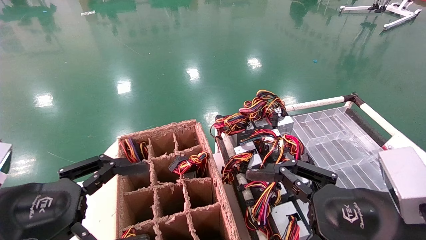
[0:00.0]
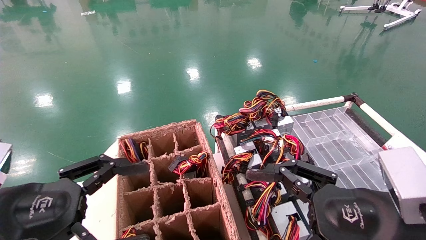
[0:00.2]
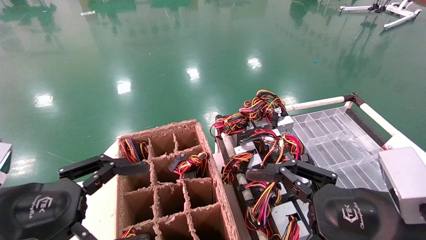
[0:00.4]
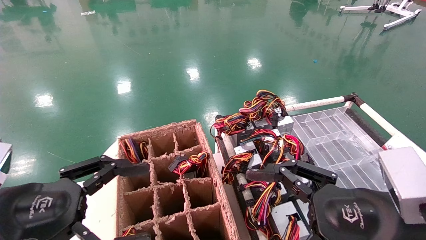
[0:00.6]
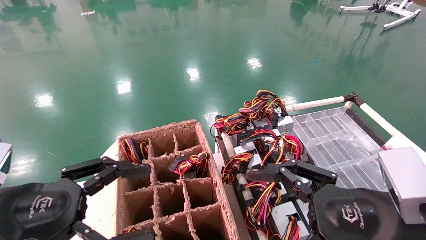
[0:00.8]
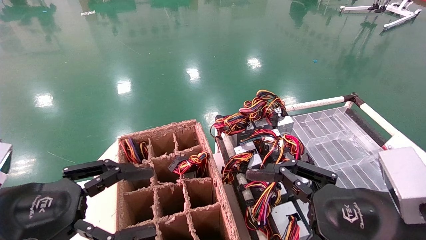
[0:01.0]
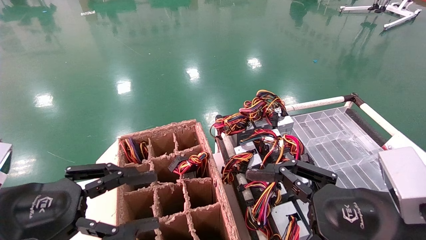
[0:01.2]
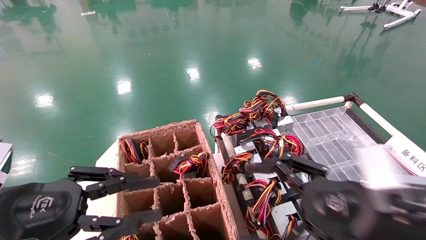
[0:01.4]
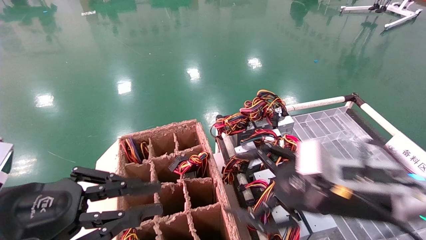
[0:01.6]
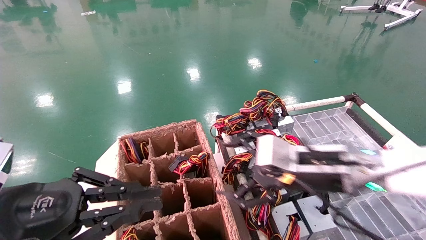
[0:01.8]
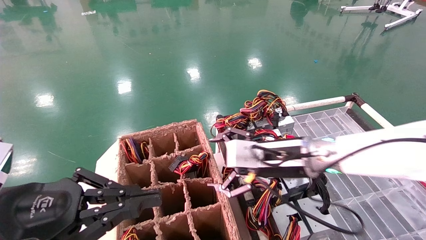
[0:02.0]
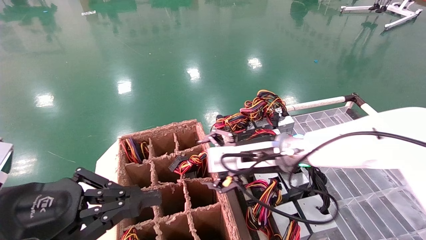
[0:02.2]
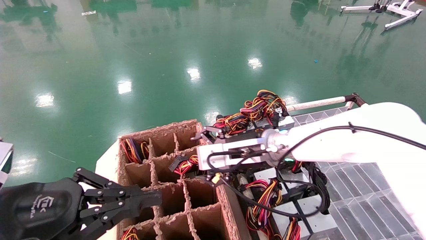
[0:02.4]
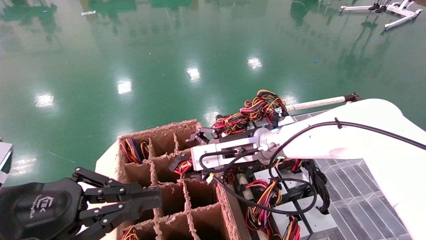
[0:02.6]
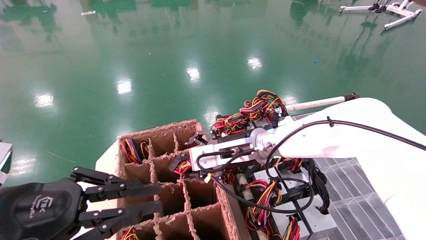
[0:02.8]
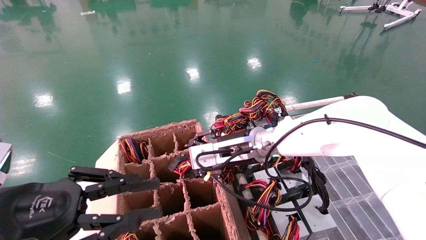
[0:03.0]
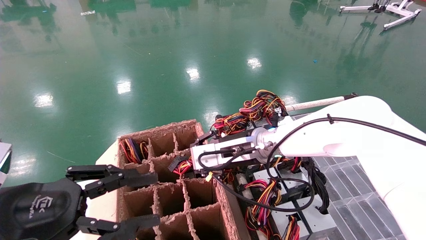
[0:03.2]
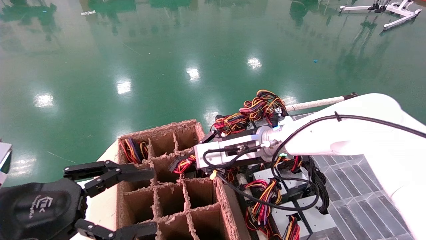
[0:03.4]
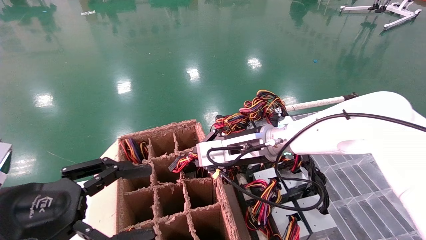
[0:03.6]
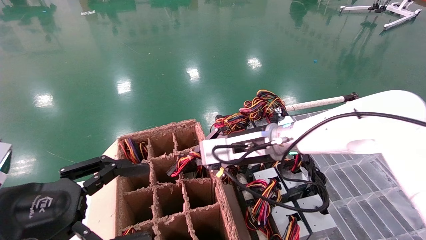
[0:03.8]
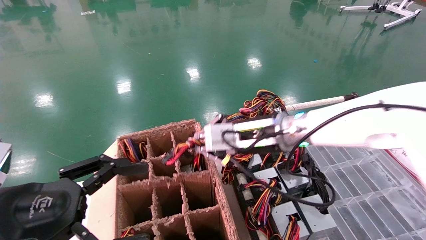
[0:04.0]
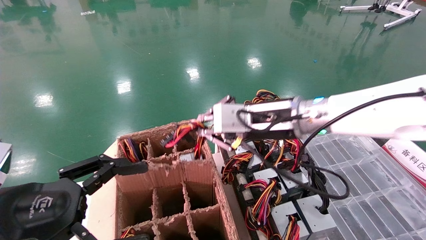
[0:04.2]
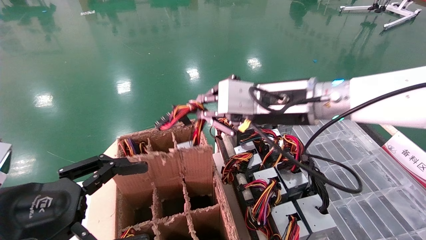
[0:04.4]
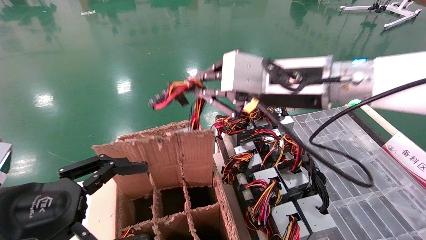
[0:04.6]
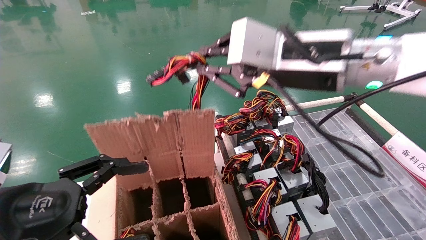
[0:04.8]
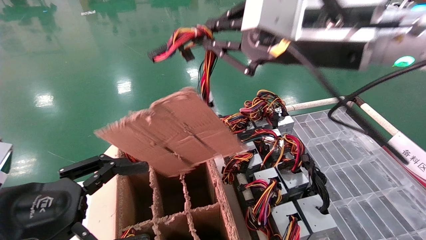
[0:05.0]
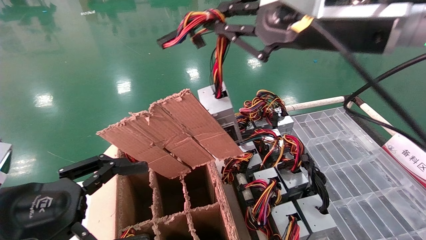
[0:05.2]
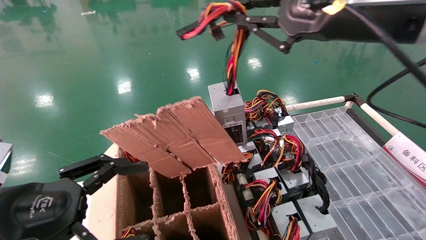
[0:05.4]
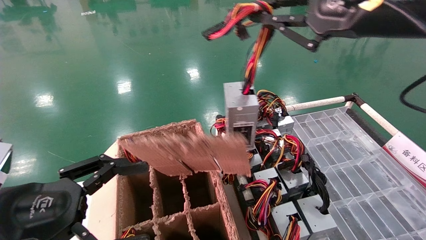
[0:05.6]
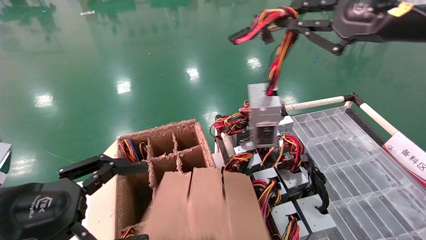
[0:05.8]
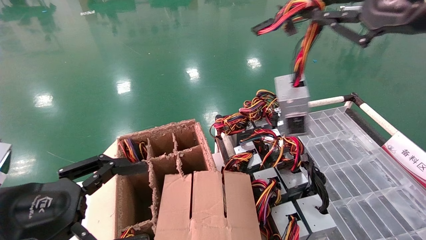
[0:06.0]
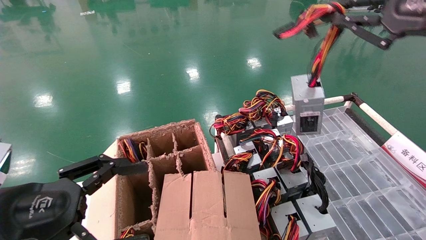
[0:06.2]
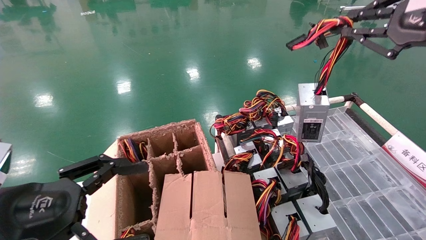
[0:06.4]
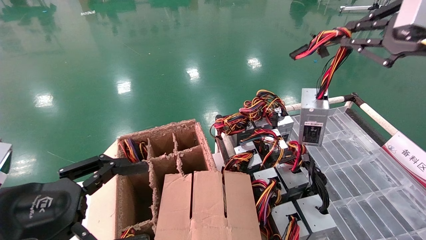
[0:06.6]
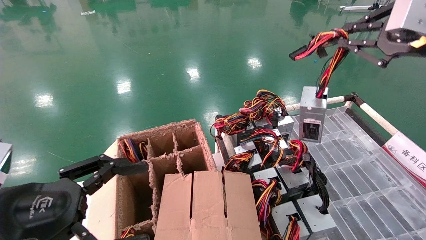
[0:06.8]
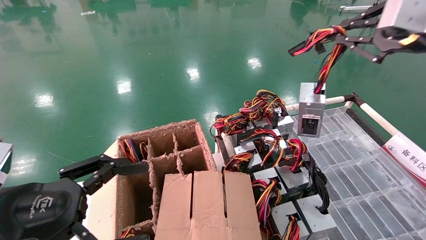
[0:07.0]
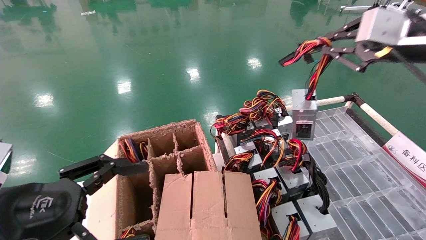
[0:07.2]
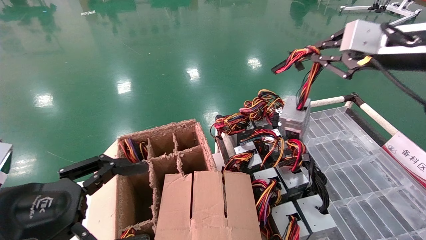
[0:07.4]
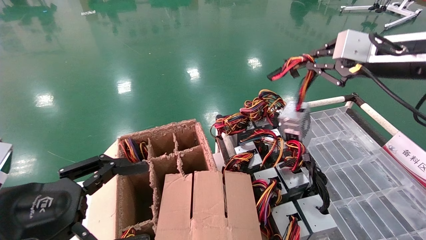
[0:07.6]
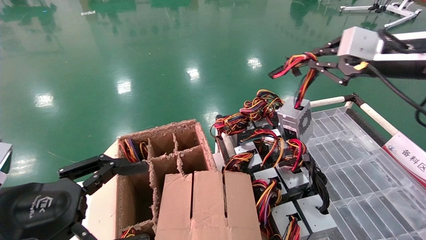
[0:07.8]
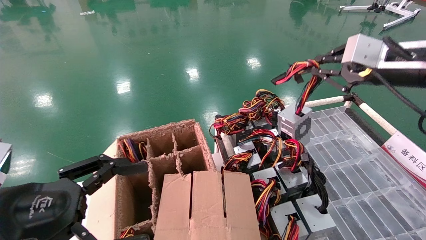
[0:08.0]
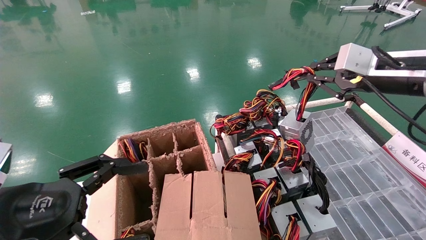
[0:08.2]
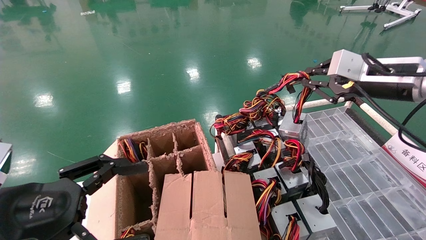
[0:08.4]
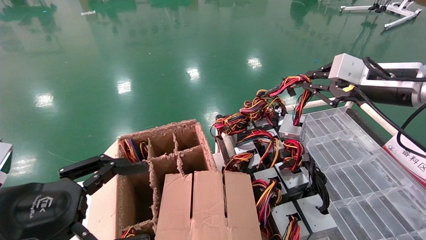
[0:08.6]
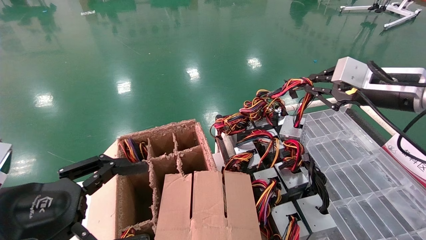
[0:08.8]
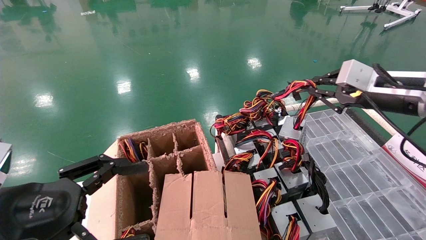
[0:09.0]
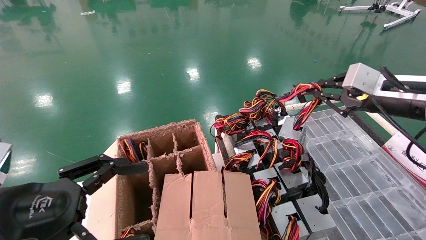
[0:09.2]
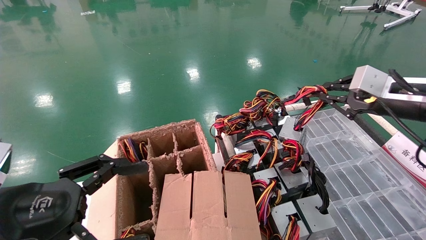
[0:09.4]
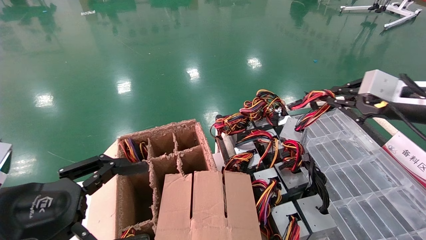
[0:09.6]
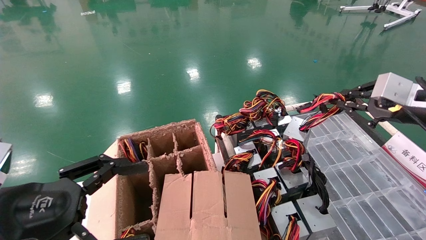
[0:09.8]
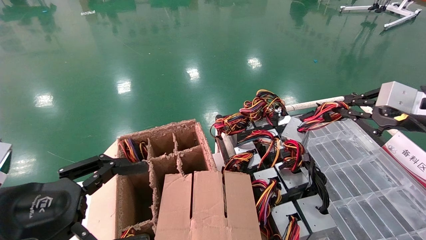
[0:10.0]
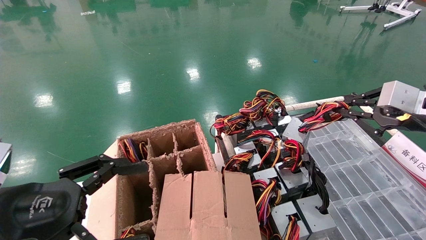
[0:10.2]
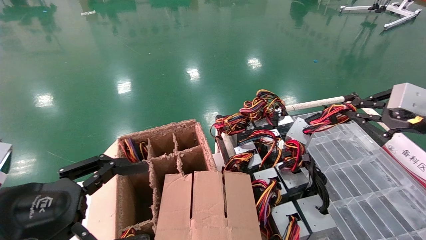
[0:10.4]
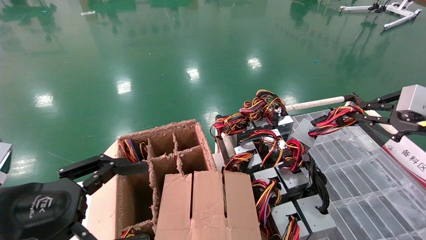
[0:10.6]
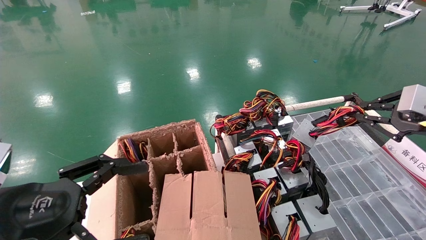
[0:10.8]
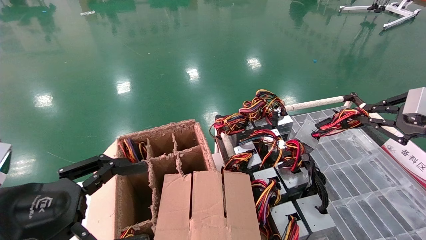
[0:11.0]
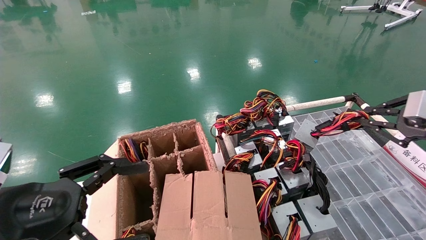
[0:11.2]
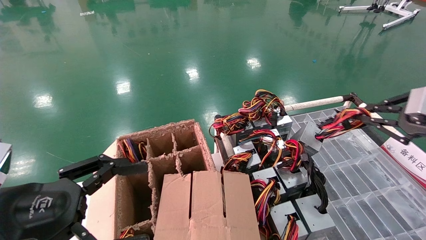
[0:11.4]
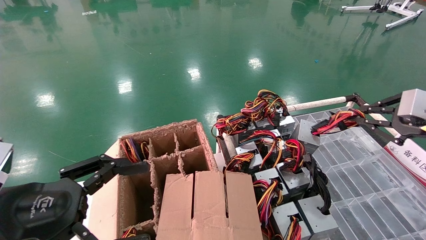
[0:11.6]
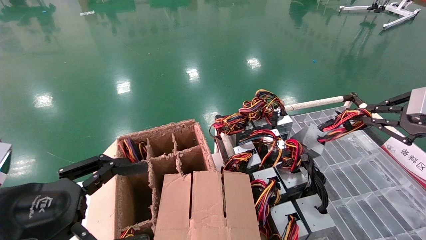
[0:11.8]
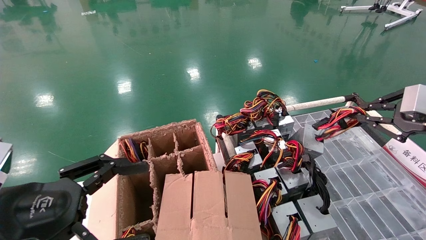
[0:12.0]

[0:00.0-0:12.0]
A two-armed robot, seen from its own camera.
Step, 0:02.2 to 0:03.8: Grab and lift the power supply from the large box.
0:00.0 to 0:01.6: The left gripper closes its fingers. Meanwhile the right gripper shifts about 10 cm forward.
0:01.6 to 0:03.0: The right gripper moves forward and to the left, about 20 cm.
0:03.0 to 0:04.4: The left gripper opens up. The right gripper shifts about 15 cm upward, backward and to the right, and closes up.
0:04.4 to 0:06.0: The right gripper goes roughly 25 cm to the right, upward and backward.
0:06.0 to 0:07.6: The right gripper goes roughly 10 cm forward.
0:07.6 to 0:09.0: The right gripper goes approximately 5 cm downward.
0:09.0 to 0:10.4: The right gripper shifts roughly 5 cm to the right.
0:10.4 to 0:12.0: The grippers move only a little.

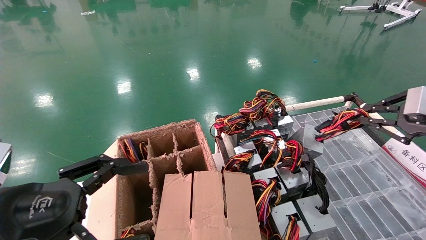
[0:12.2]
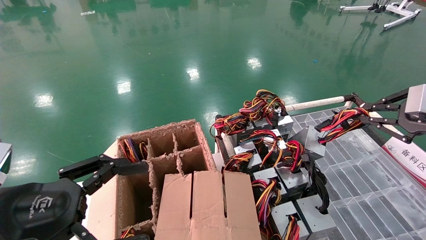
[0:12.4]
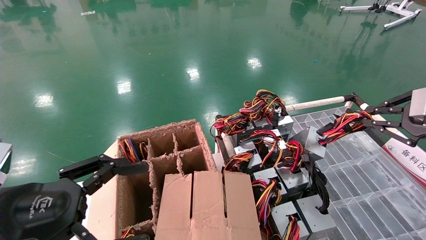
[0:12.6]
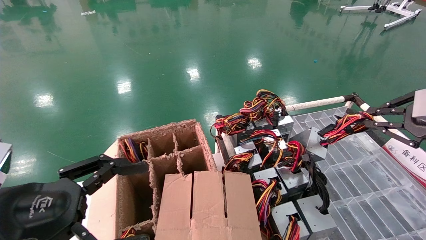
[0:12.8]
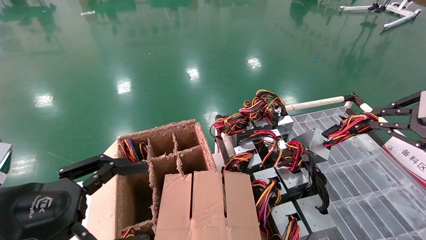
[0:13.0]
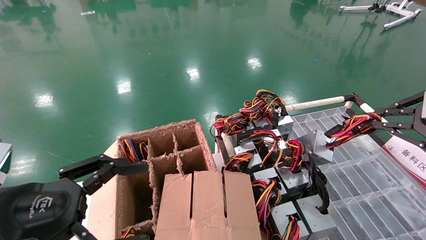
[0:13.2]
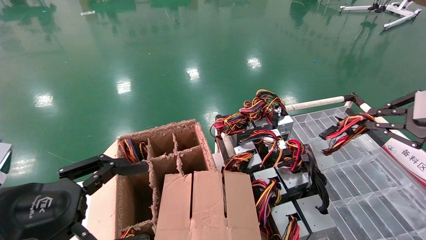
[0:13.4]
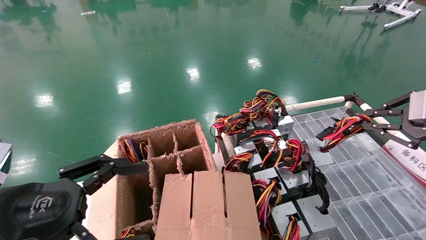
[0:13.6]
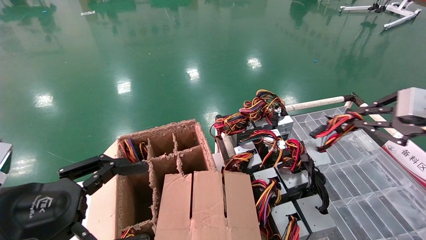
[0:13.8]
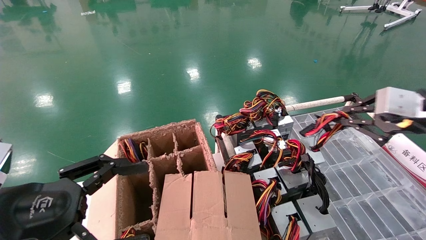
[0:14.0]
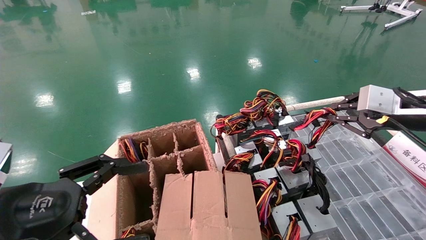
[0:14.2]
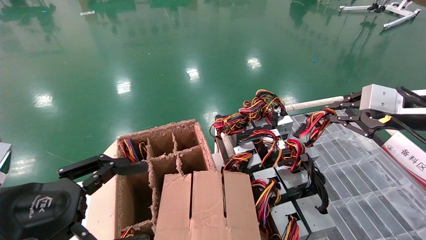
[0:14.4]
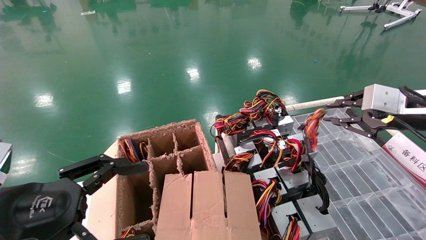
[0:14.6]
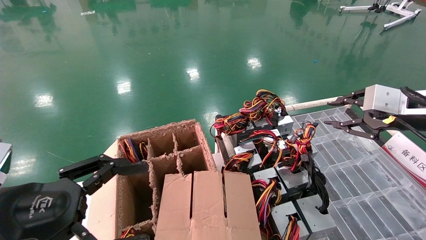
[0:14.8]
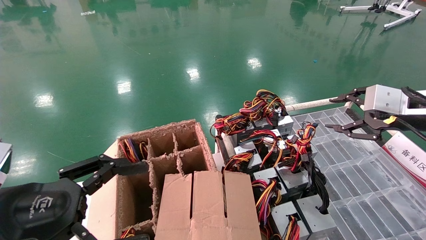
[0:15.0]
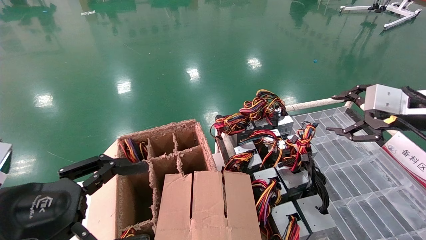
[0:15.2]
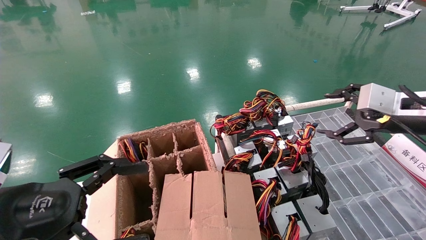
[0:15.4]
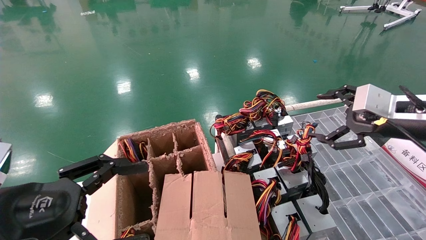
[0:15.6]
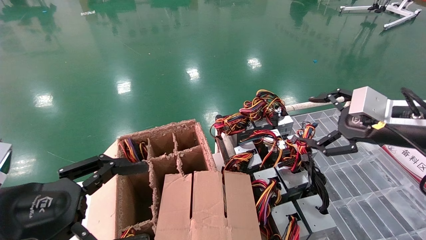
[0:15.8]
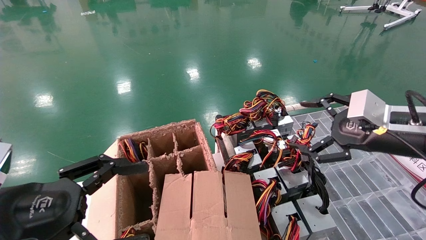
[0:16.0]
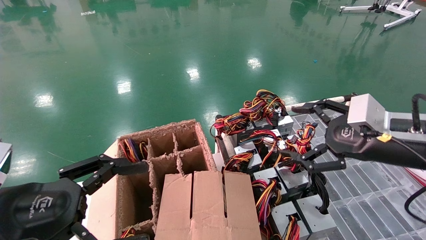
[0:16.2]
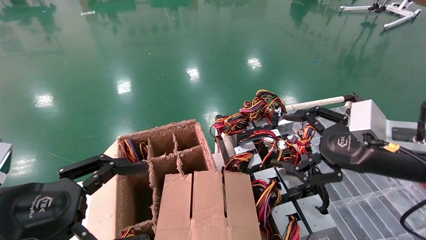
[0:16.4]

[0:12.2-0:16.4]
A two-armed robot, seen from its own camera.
Step, 0:12.2 to 0:14.4: Place the power supply on the operating table.
0:12.2 to 0:13.6: The grippers move only a little.
0:13.6 to 0:15.0: The right gripper moves about 5 cm, and opens its fingers.
0:15.0 to 0:16.4: The right gripper goes roughly 10 cm to the left and downward, and opens.
